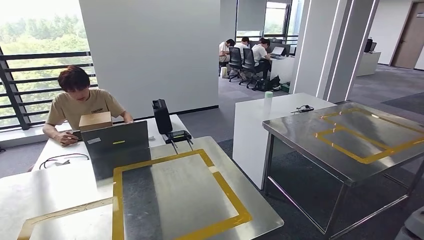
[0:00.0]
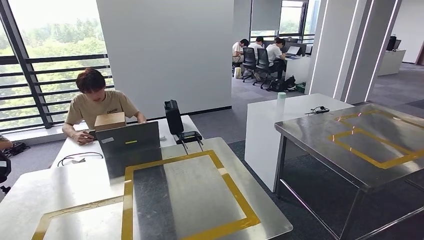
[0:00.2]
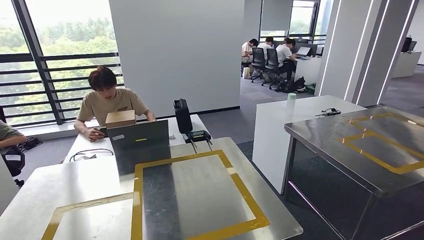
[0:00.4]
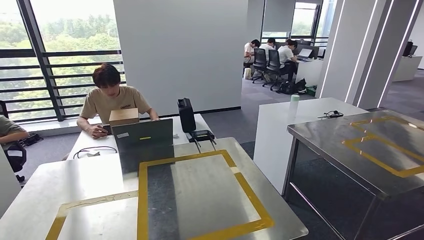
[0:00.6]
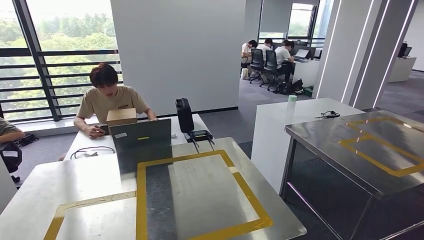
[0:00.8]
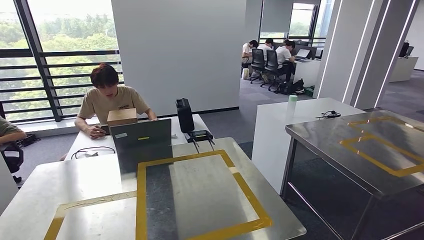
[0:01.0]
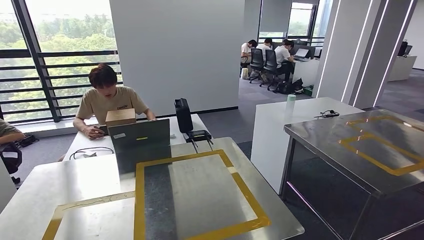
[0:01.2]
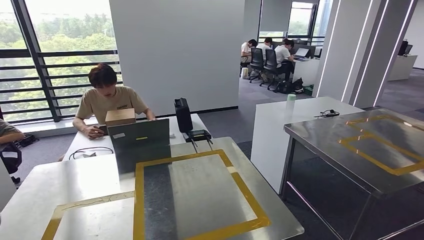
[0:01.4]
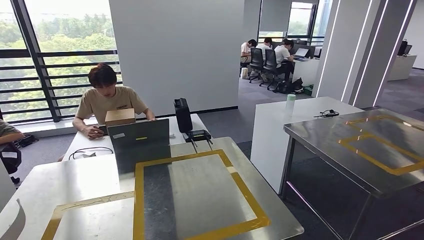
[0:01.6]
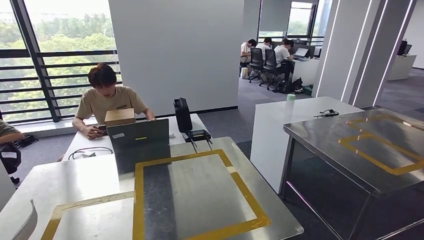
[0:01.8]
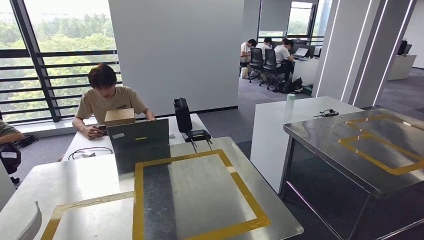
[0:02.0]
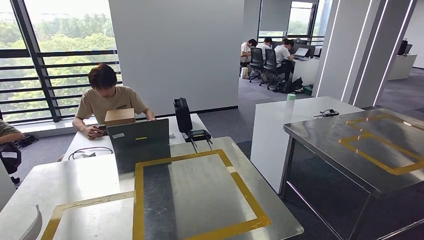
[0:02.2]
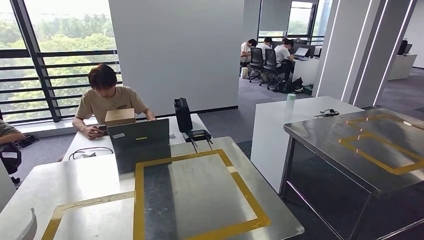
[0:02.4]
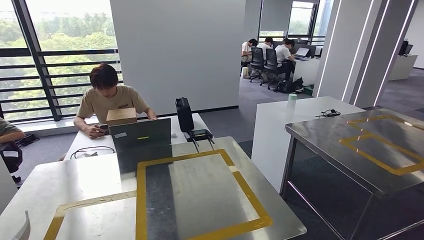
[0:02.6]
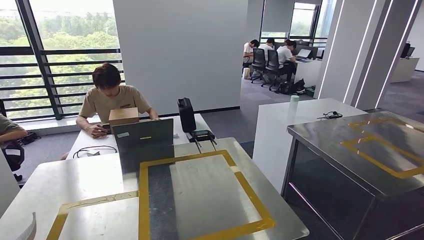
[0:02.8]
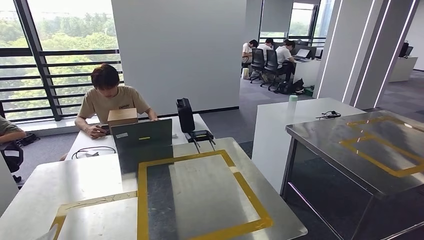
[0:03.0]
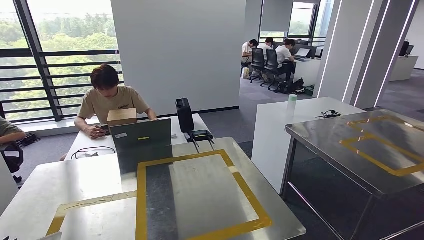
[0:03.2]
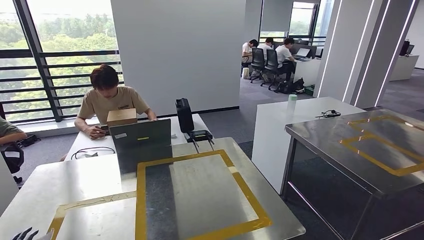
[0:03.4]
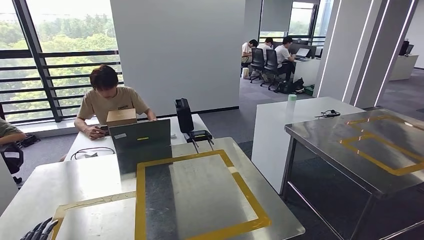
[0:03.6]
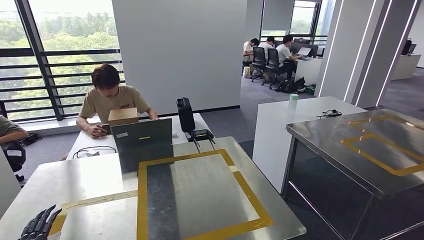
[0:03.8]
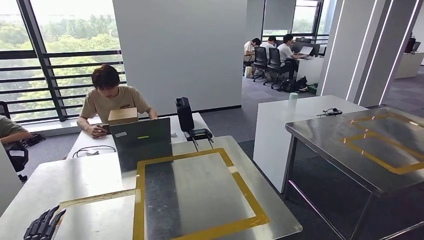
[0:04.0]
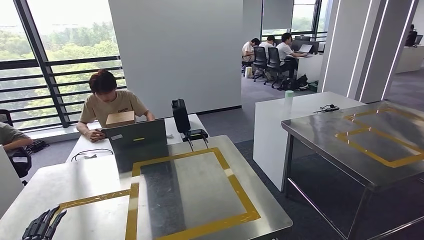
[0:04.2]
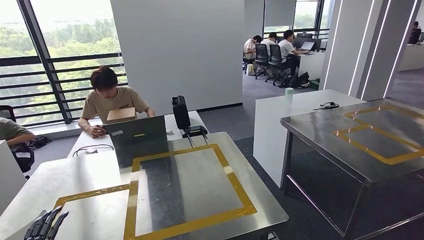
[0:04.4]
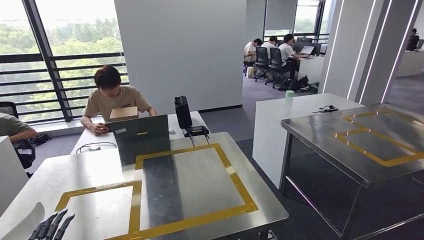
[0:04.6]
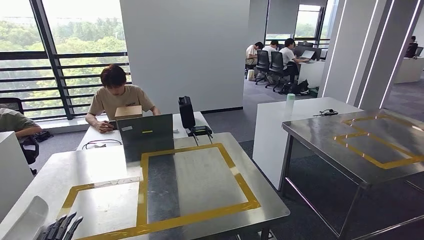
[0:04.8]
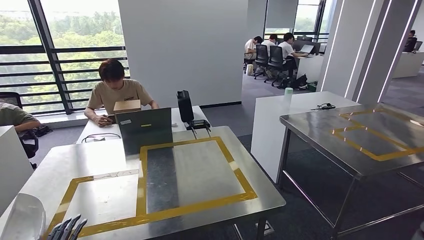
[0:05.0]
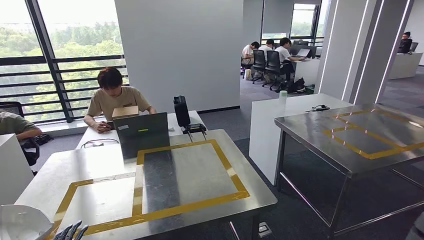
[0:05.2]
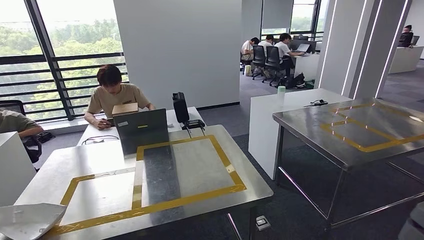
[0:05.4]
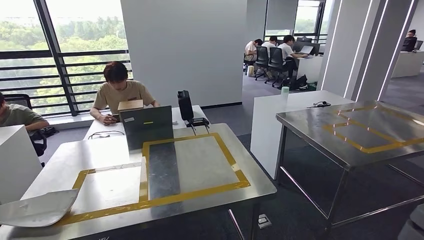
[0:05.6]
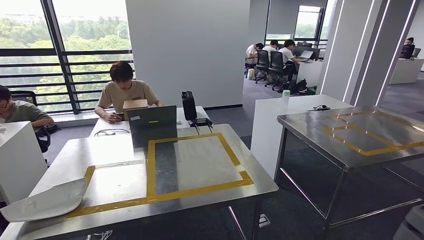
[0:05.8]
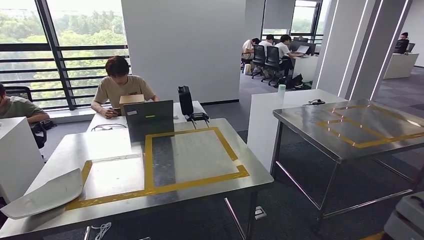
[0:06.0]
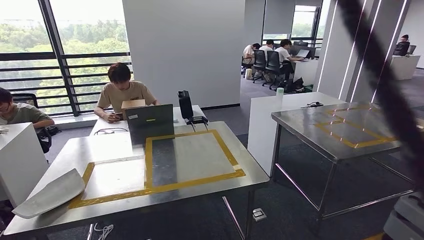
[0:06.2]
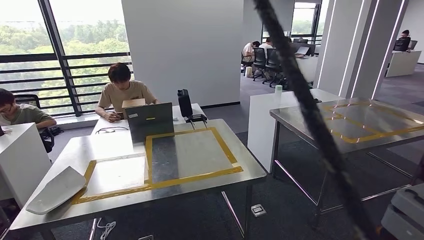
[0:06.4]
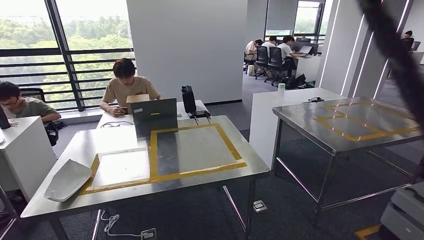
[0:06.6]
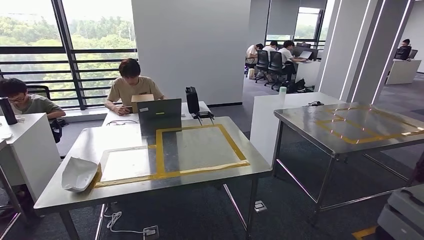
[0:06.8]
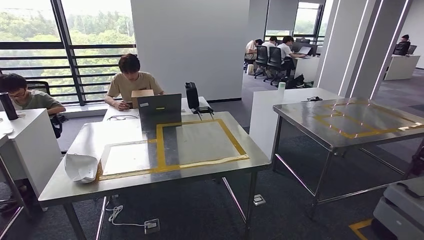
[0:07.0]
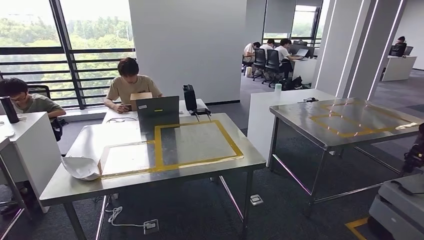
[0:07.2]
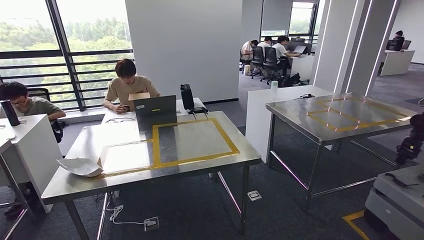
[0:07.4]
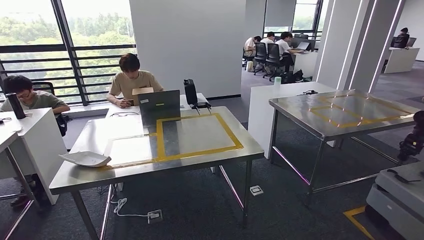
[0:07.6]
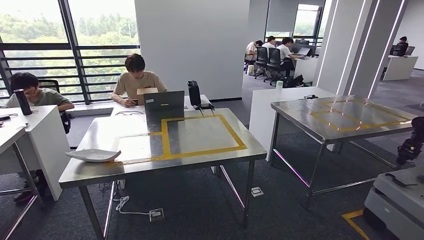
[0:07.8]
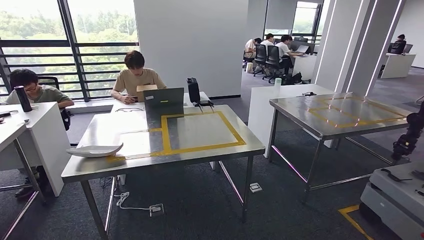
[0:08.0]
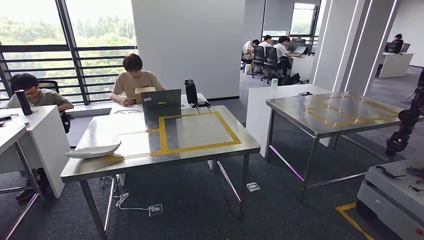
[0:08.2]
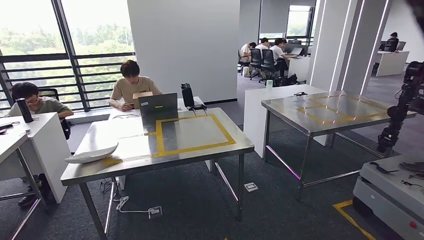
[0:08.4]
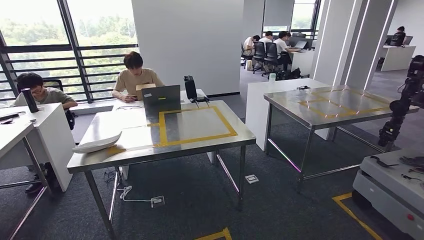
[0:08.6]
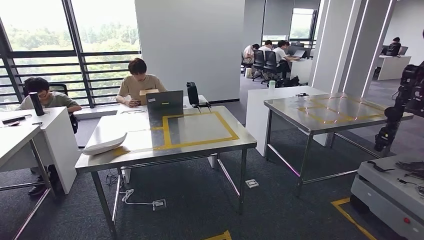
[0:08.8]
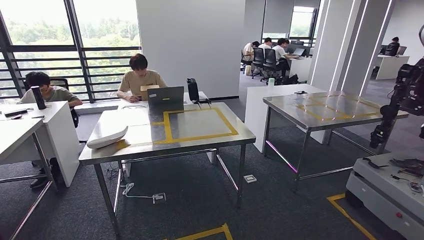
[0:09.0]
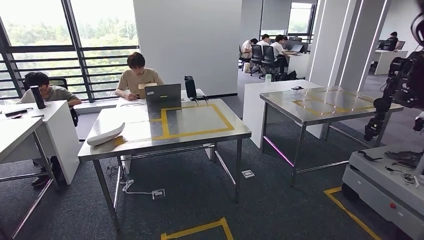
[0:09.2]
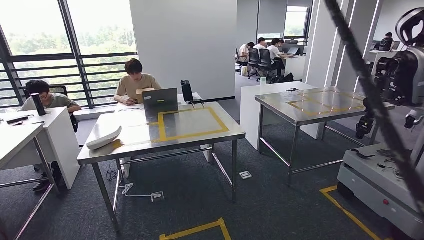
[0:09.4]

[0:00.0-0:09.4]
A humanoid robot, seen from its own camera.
Step, 0:00.0 to 0:06.8: Insert the small parts into the corresponding holes on the workbench.
Step, 0:07.0 to 0:09.4: Move to the initial position of the workbench.
0:01.6 to 0:03.2: The hands move only a little.
